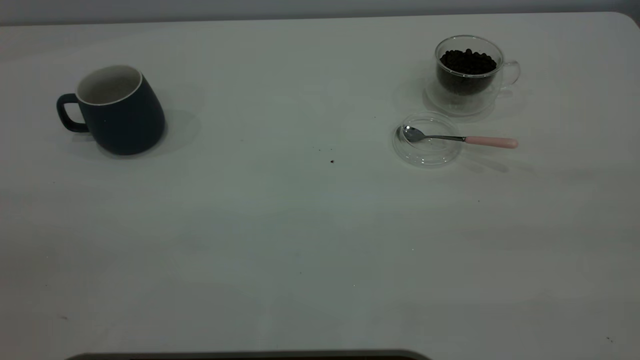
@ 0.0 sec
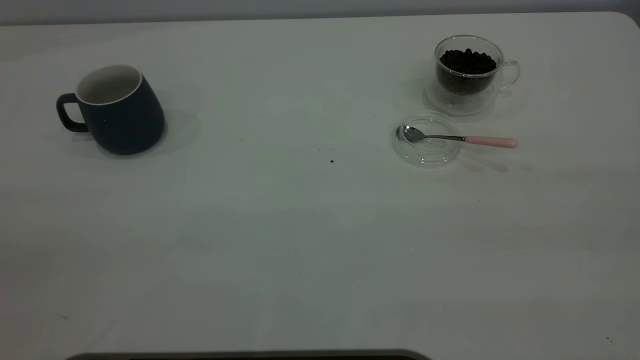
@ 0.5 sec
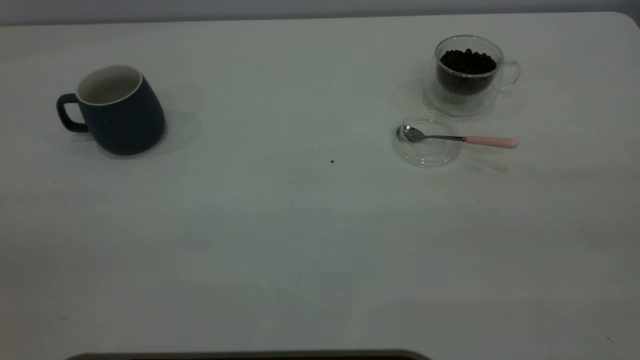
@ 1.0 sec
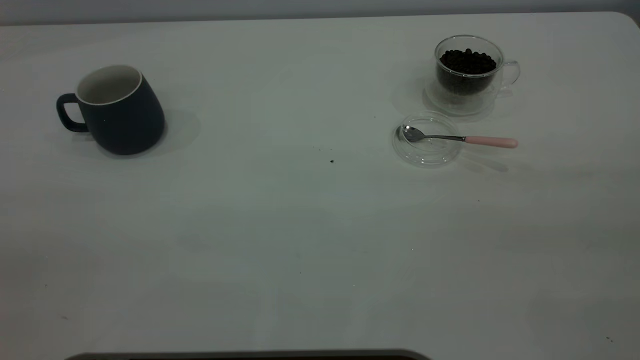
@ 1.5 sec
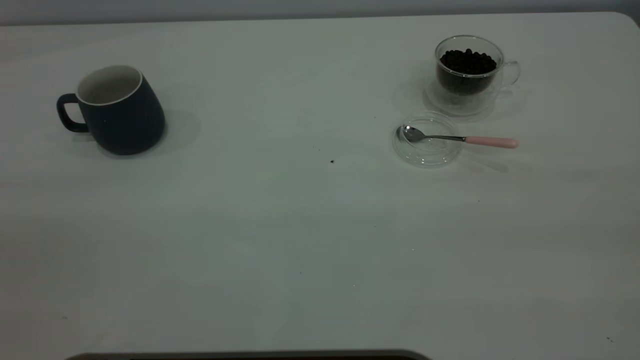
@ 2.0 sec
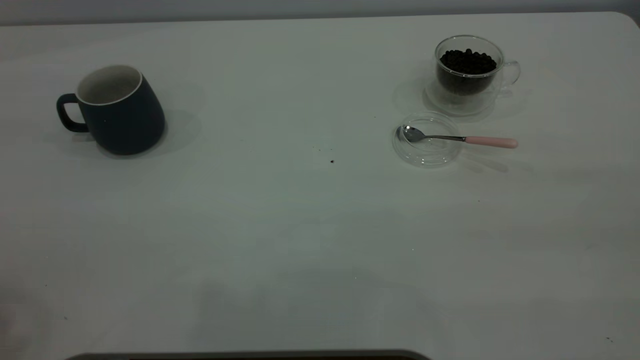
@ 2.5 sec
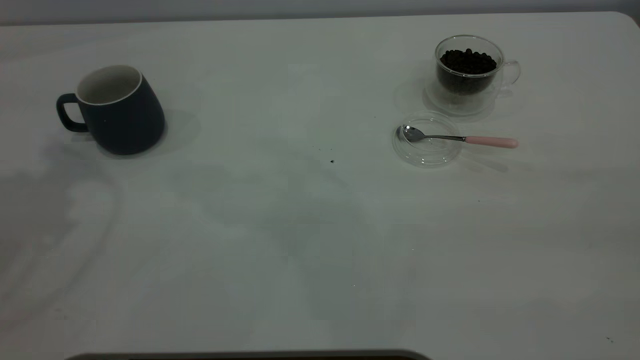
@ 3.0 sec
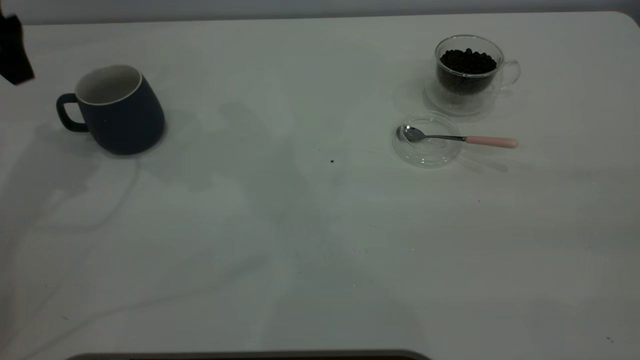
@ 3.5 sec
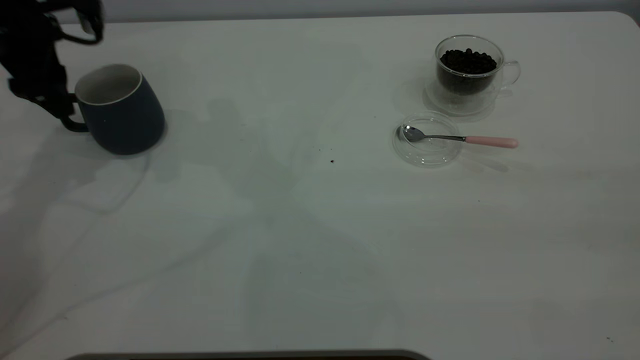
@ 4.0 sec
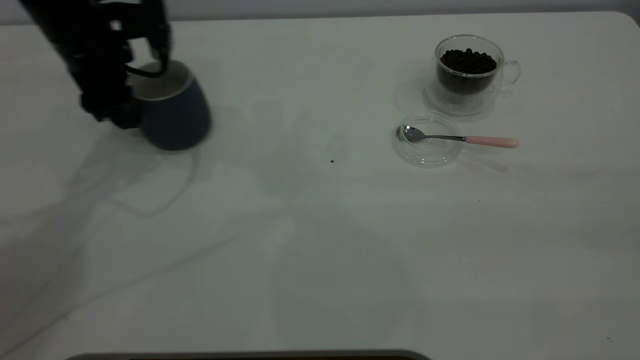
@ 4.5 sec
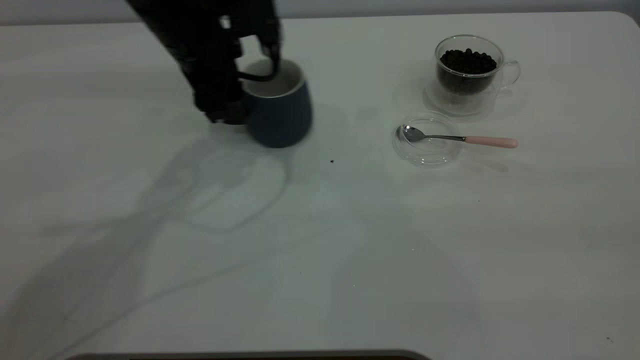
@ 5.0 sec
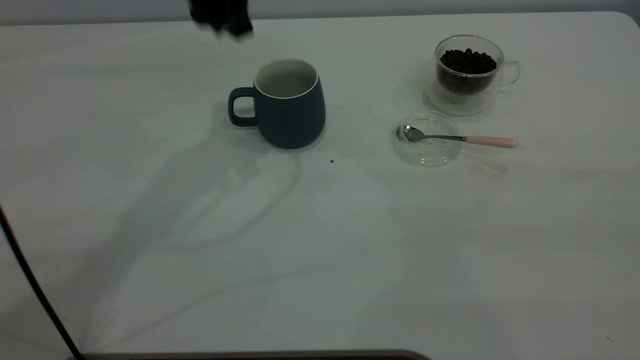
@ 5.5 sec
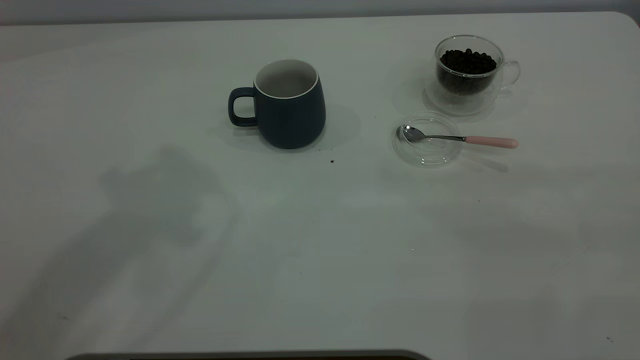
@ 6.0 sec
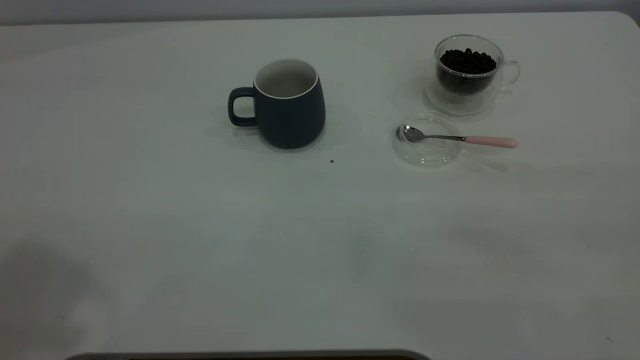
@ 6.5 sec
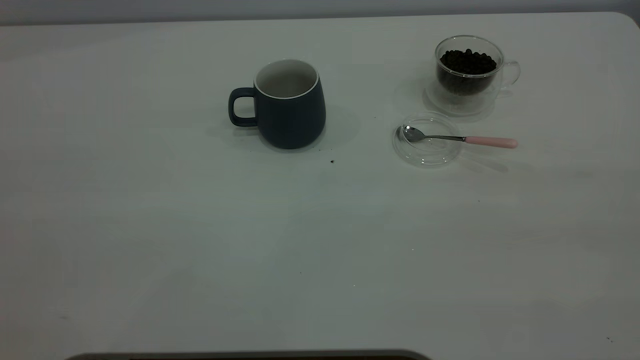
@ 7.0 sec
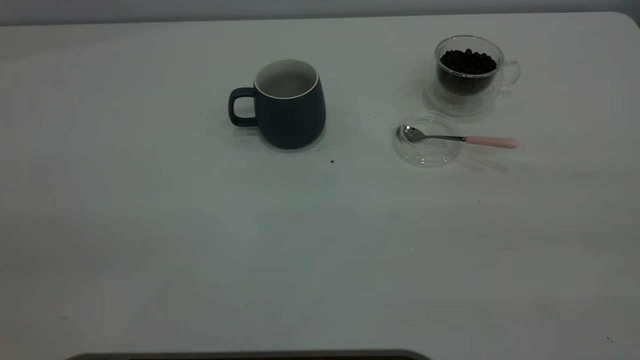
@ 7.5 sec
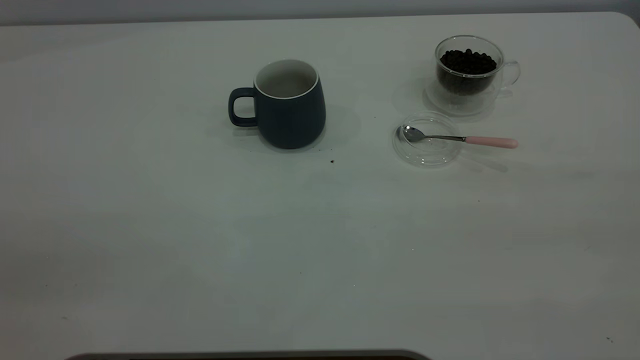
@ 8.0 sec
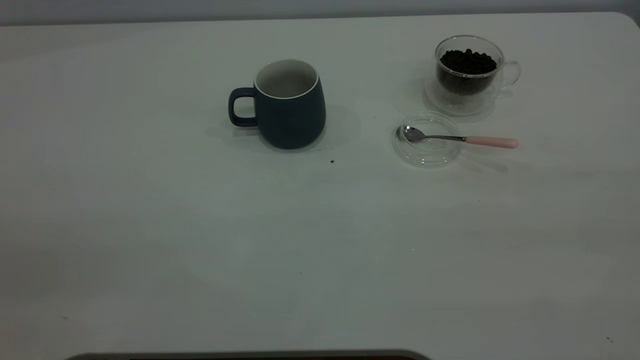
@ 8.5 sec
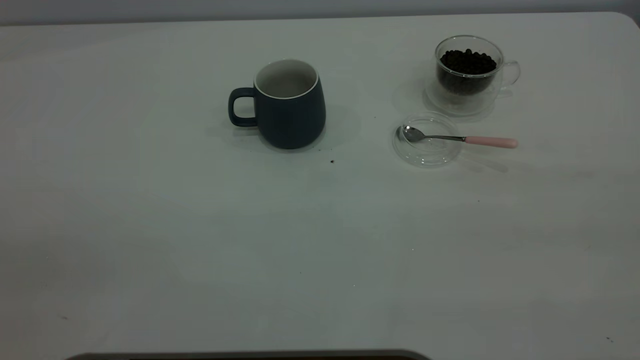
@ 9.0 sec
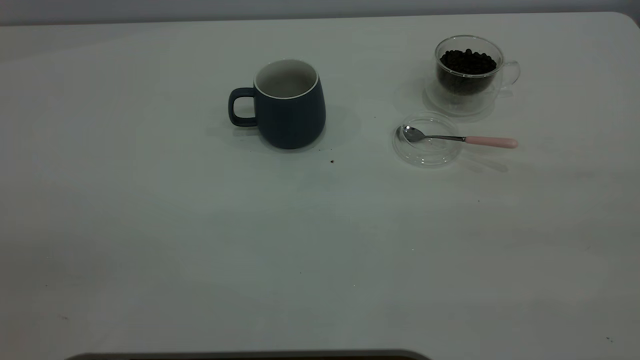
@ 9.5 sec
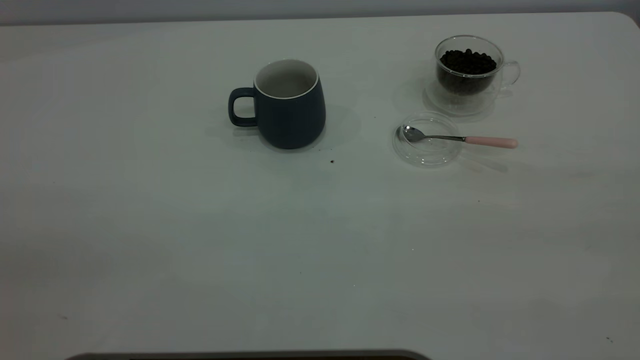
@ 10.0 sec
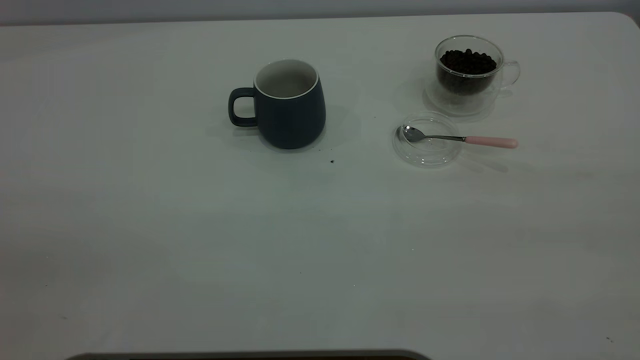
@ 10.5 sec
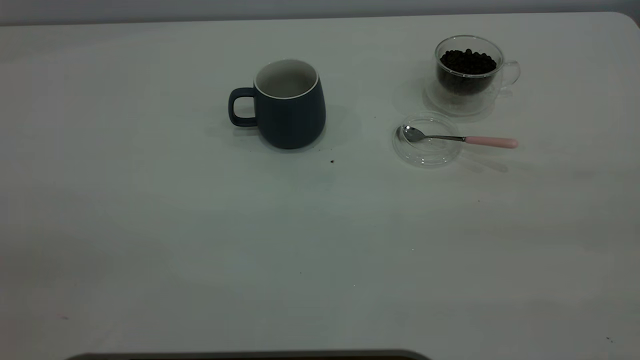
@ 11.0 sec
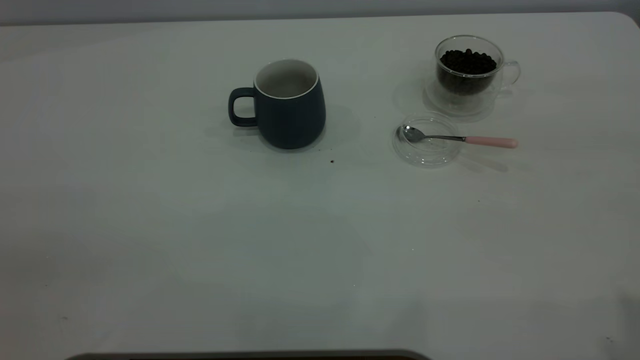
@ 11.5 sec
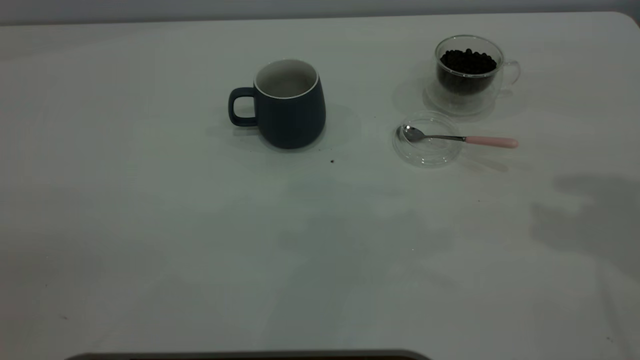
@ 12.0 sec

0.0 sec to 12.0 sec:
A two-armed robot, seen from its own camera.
Task of the whole recording: the left gripper place the grey cup in the center of the table, the right gripper take the pink spoon from the cup lid and scoop out the coffee beans from the coffee cup and put them into the grey cup, the right gripper put the spoon back into the cup lid.
Step, 0.0 sec to 5.0 sec: Move the cup to the center of view.
2.0 sec to 4.0 sec: The left gripper travels forward and downward by roughly 50 cm.
4.0 sec to 6.0 sec: The left gripper moves upward, backward and to the right, about 35 cm.

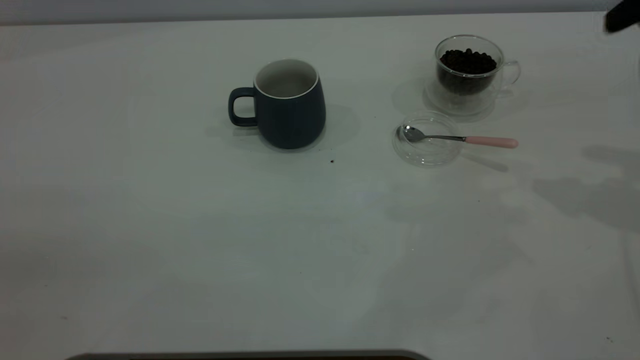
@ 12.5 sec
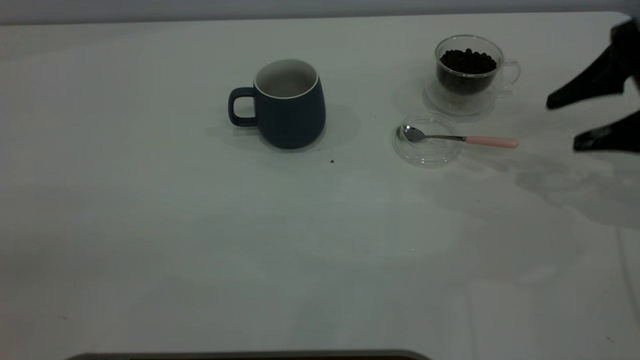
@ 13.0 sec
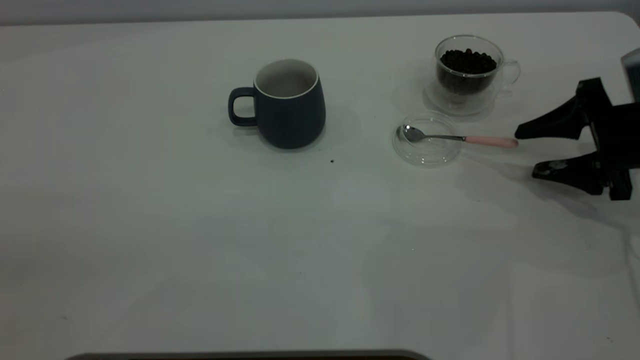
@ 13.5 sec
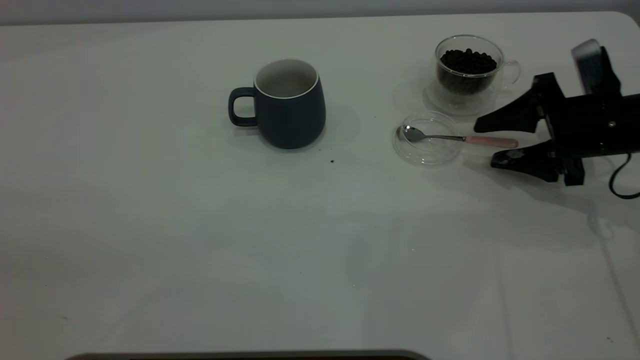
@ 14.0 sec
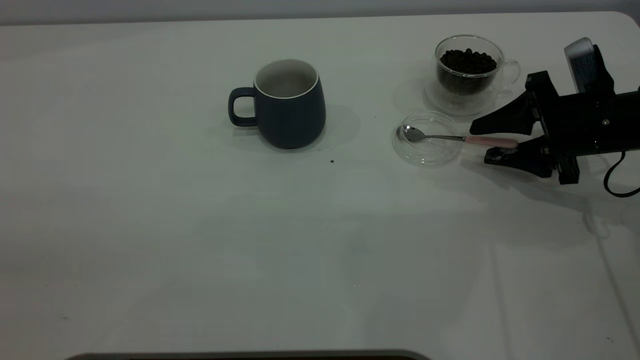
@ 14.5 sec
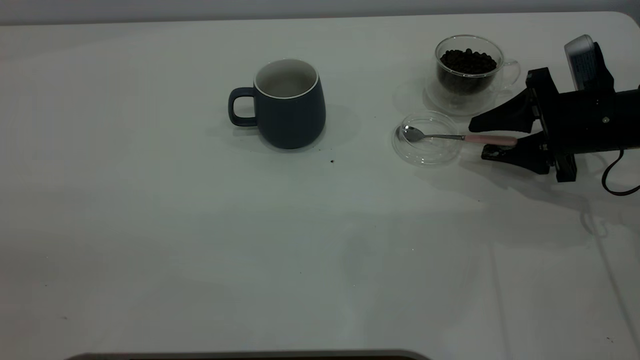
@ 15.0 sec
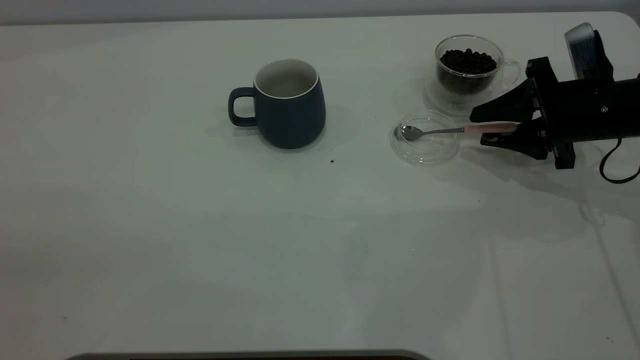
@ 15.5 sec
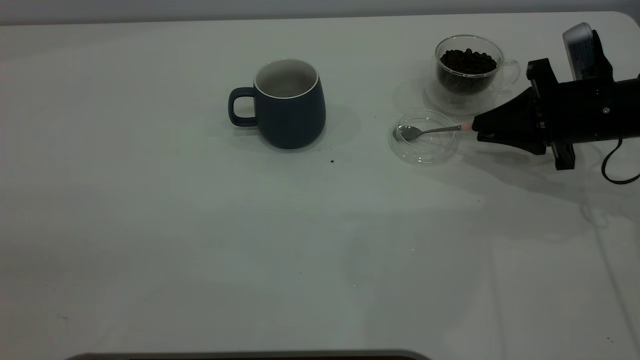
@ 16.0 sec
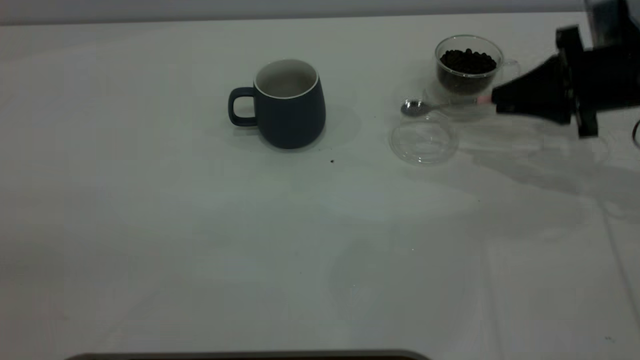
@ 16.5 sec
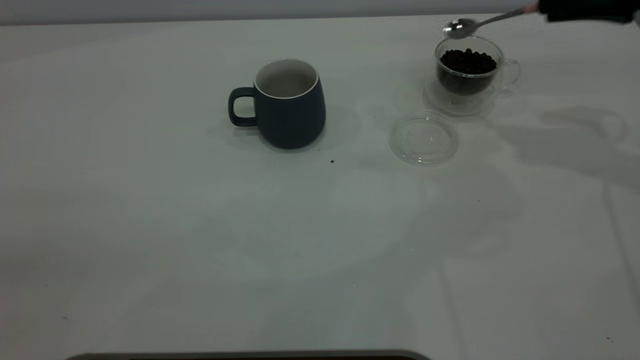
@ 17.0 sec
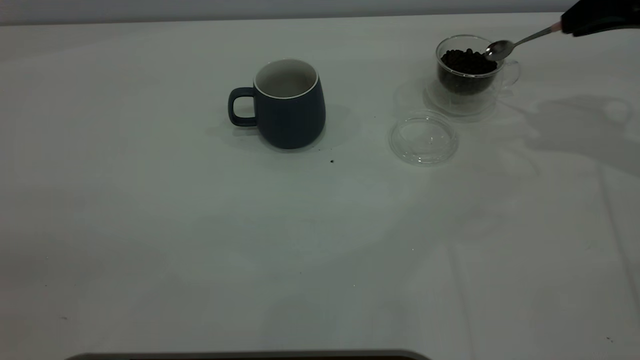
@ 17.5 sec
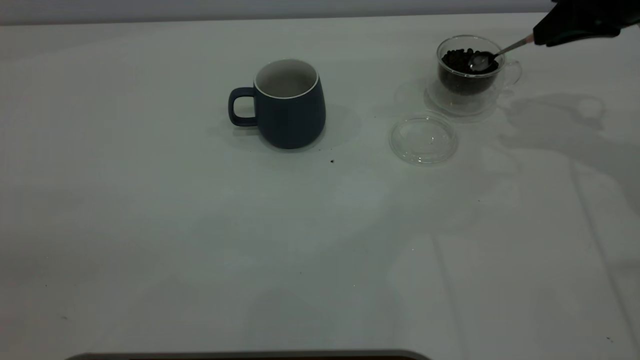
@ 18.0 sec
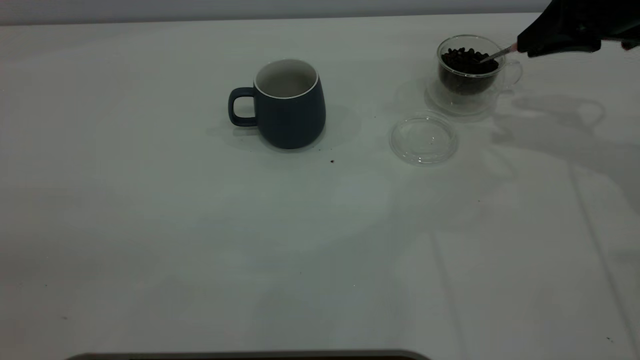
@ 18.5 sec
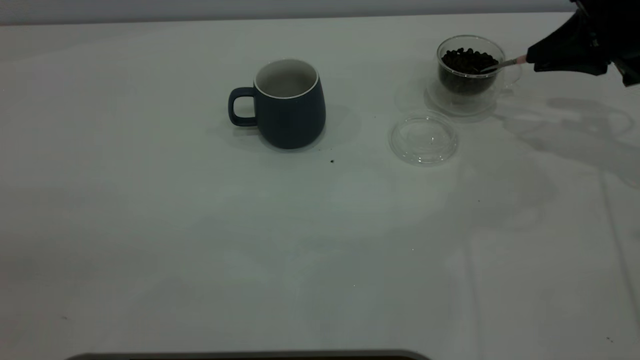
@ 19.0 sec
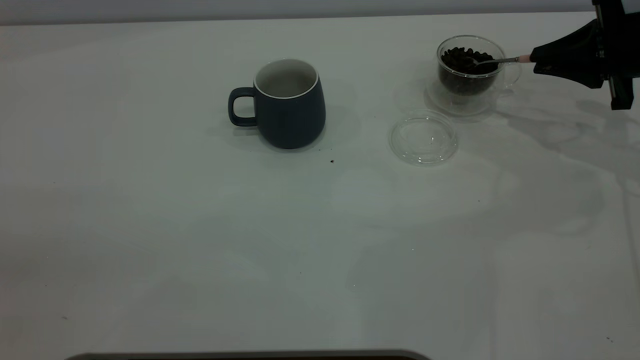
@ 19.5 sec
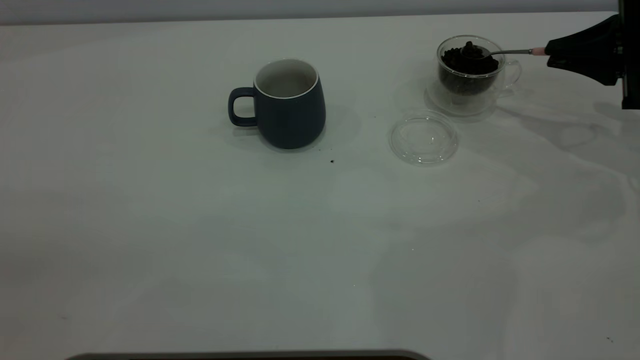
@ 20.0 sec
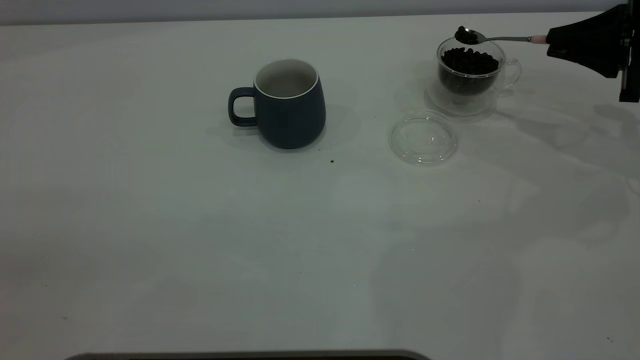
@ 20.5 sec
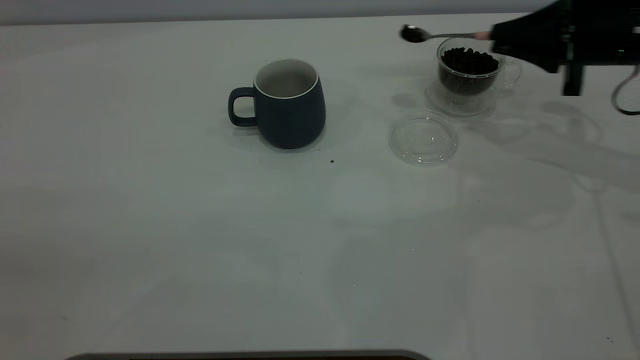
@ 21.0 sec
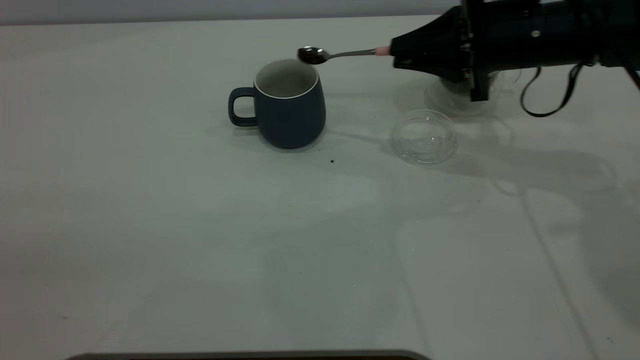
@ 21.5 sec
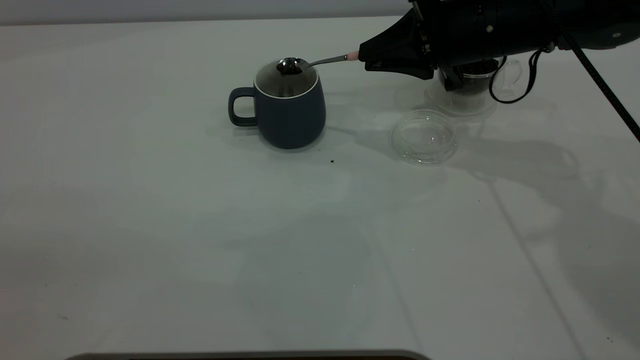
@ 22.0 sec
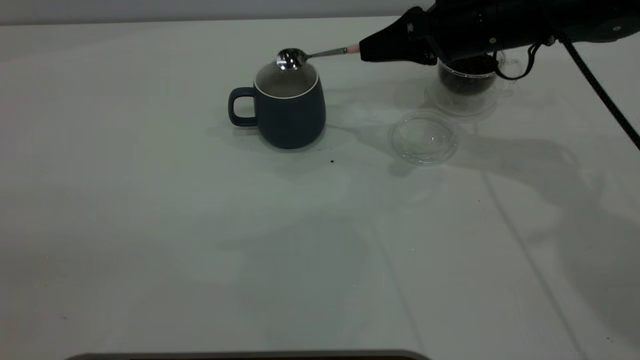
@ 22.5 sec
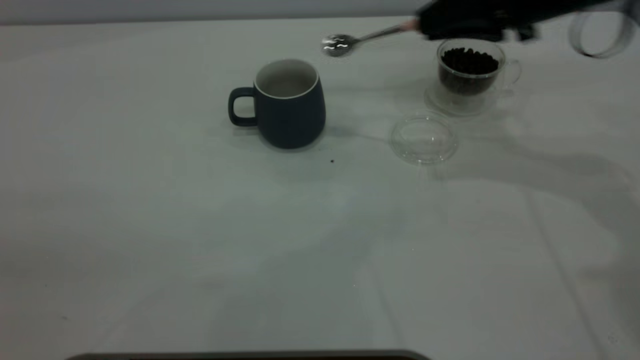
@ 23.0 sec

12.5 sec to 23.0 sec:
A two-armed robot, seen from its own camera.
Task of the whole recording: the left gripper place the grey cup in the center of the table, the right gripper take the pink spoon from the cup lid and scoop out the coffee beans from the coffee cup and put them into the grey cup, the right gripper put the spoon back into the cup lid.
Step, 12.5 sec to 16.0 sec: Pick up the spoon.
Step, 17.0 sec to 22.5 sec: Scoop a spoonful of beans into the cup.
12.5 sec to 14.5 sec: The right gripper moves downward, about 20 cm.
14.5 sec to 16.5 sec: The right gripper heads upward, covering roughly 5 cm, and closes up.
16.5 sec to 19.0 sec: The right gripper travels upward and back again, some 10 cm each way.
21.0 sec to 23.0 sec: The right gripper goes approximately 10 cm upward and to the left.
